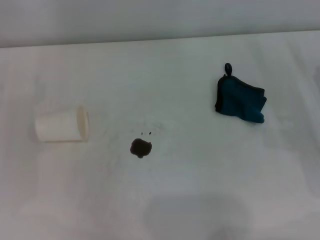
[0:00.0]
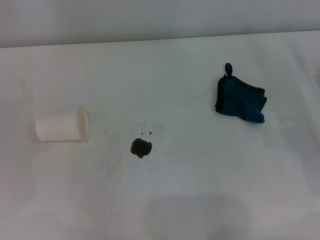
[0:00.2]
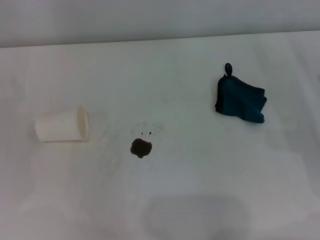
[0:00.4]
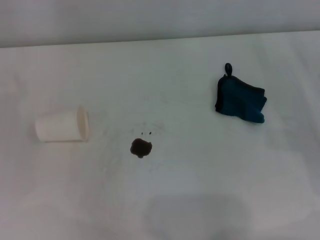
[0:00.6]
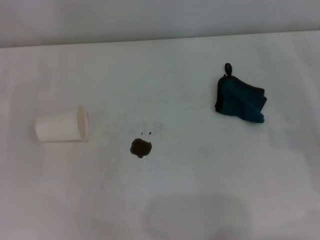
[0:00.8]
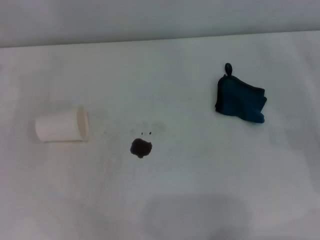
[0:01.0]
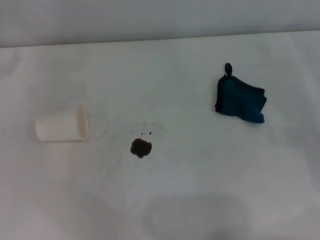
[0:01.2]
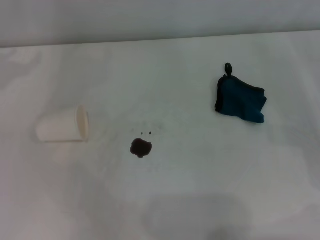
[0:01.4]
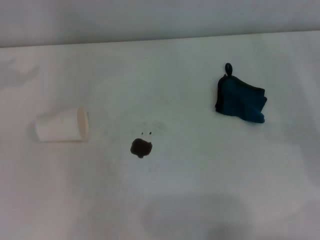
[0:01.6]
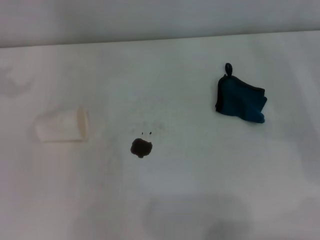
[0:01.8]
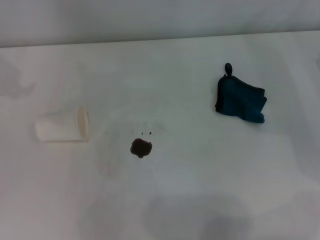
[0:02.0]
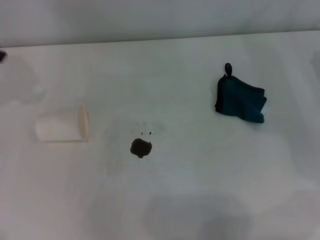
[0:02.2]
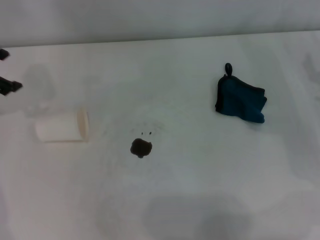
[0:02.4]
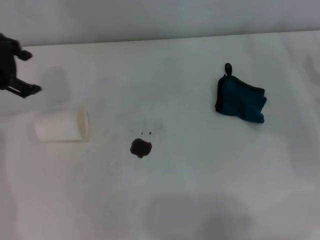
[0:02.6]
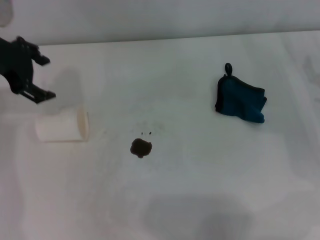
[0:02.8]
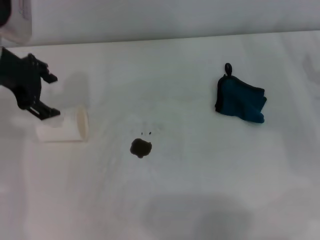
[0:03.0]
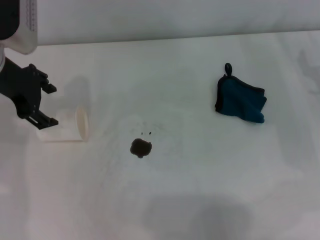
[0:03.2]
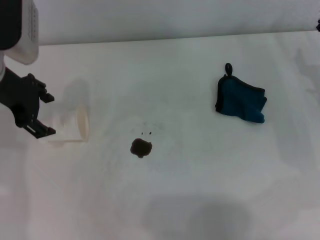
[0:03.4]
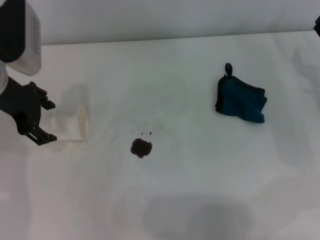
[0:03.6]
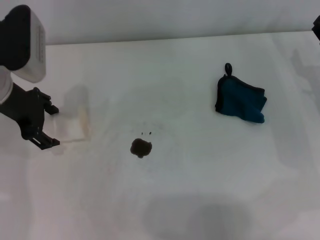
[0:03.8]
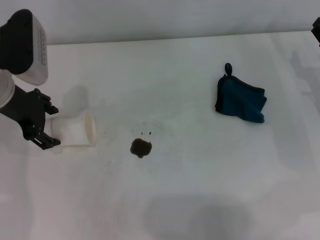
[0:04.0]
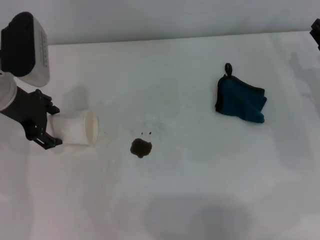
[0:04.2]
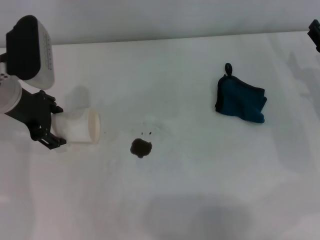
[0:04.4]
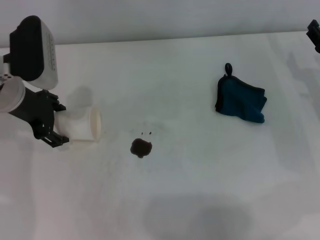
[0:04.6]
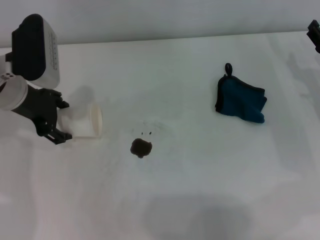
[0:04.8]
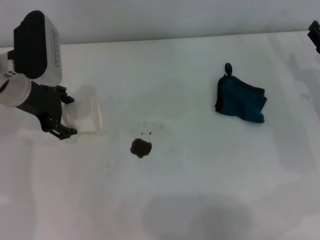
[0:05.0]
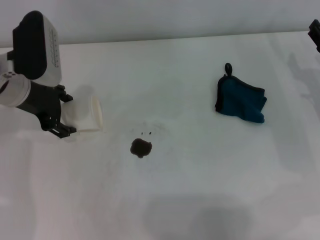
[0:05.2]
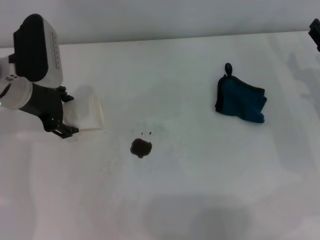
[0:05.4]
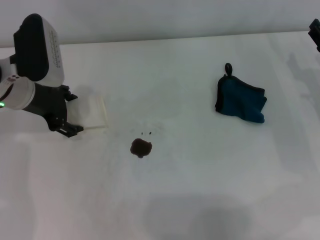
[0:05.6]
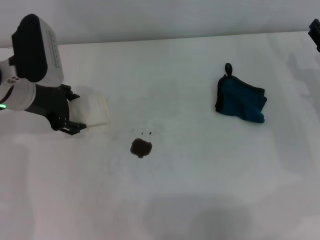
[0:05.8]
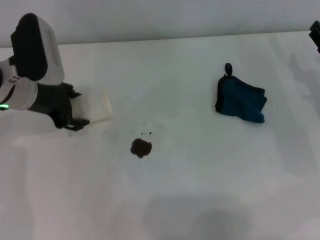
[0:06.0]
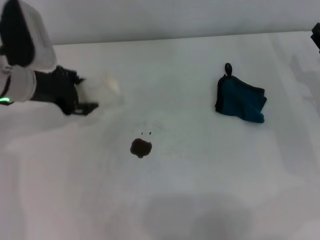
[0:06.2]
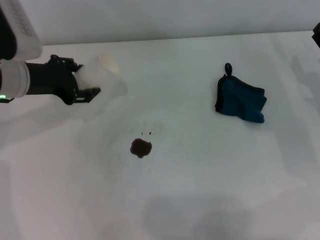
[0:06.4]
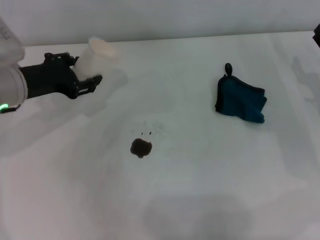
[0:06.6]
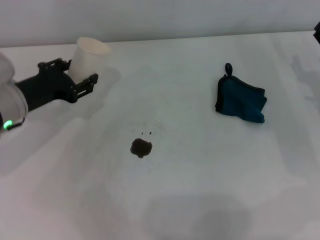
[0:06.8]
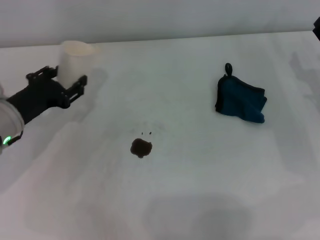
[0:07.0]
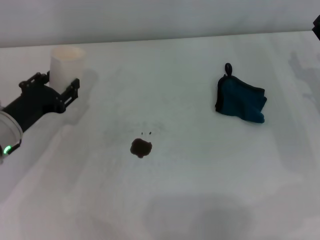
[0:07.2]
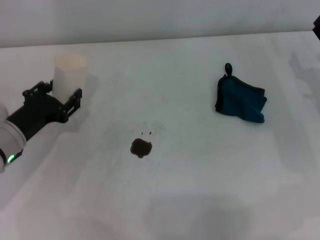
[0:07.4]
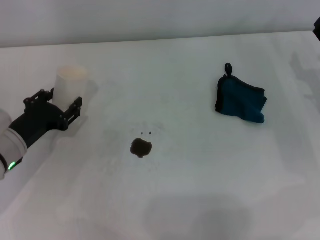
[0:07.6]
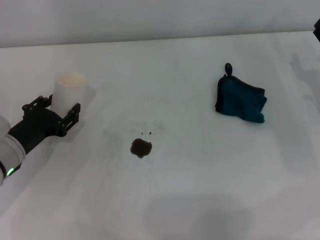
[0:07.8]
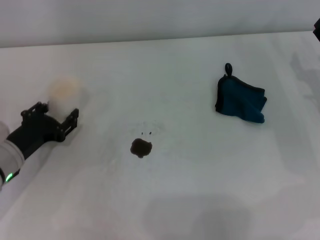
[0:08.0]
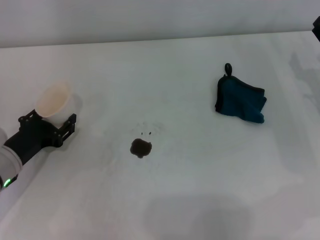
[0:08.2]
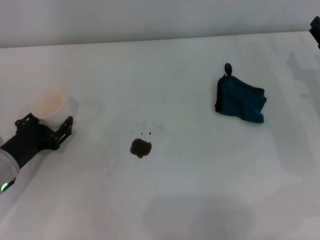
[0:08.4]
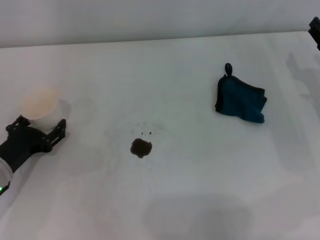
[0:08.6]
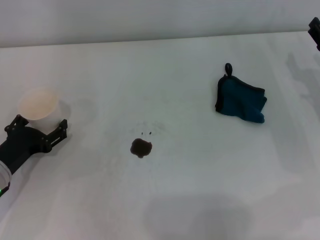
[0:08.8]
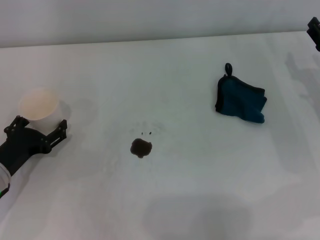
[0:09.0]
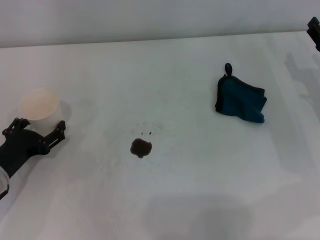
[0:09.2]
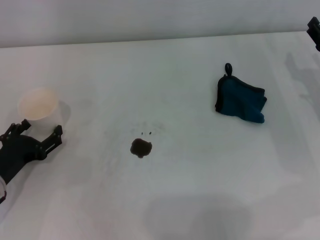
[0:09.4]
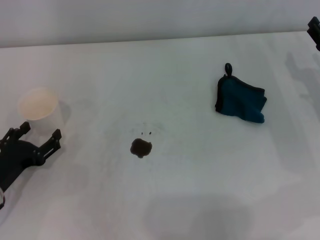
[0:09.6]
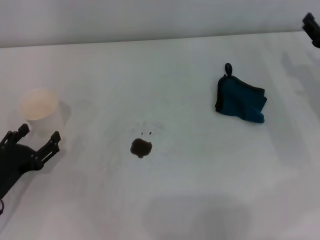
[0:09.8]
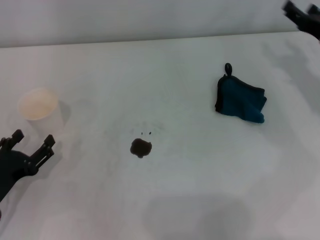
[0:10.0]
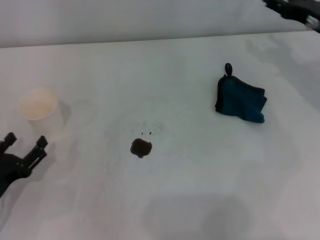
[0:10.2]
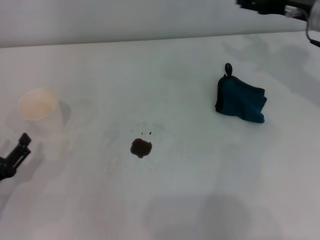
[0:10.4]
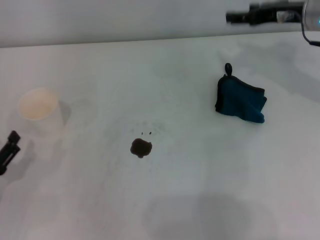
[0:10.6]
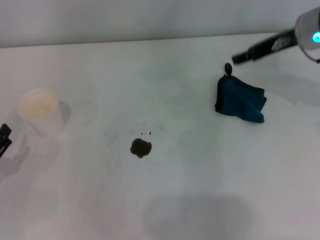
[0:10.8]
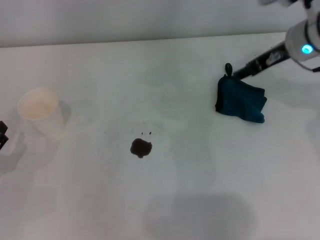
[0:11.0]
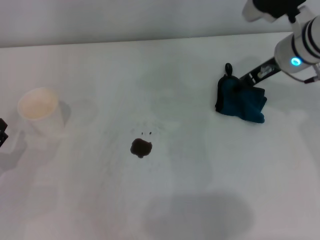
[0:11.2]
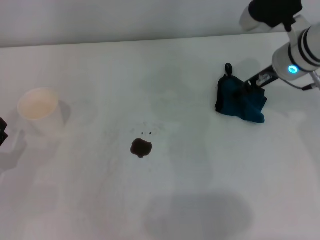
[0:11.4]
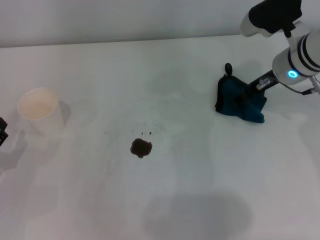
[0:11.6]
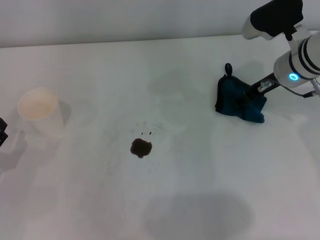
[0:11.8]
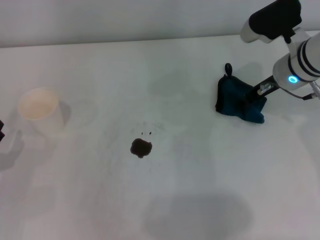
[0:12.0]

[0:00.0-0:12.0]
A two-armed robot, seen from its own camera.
Step, 0.0 to 5.8 s: Grasp the paper cup with the left gripper.
Step, 6.0 to 8.6 s: Stand the paper cup upright with the left gripper.
1.6 to 3.0 s: The left gripper heads to the right, covering about 15 cm.
3.0 to 4.4 s: The left gripper heads downward, covering approximately 5 cm.
4.4 to 6.0 s: The grippers move only a little.
6.0 to 7.6 s: The left gripper shifts roughly 15 cm downward and backward, and closes up.
7.6 to 9.0 s: The left gripper ends up about 5 cm from where it was, and opens its fingers.
9.0 to 10.4 s: The right gripper heads upward and forward, covering about 15 cm; the left gripper heads backward, covering about 5 cm.
10.4 to 12.0 s: The right gripper travels to the left by approximately 5 cm.

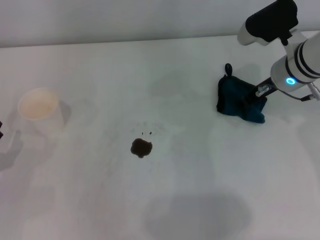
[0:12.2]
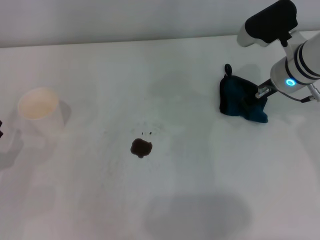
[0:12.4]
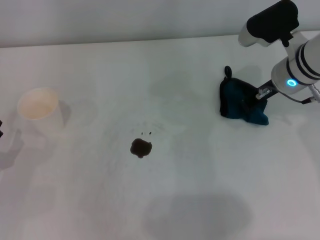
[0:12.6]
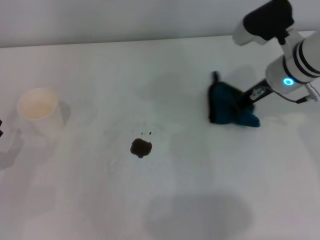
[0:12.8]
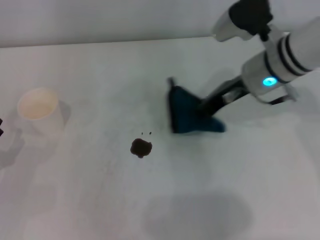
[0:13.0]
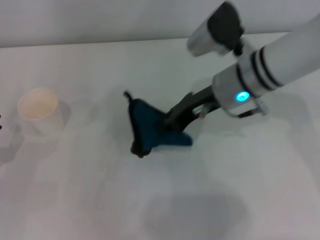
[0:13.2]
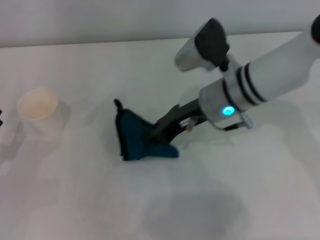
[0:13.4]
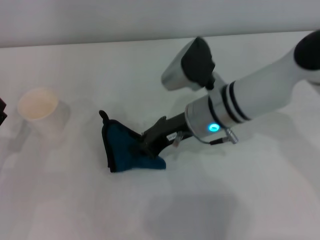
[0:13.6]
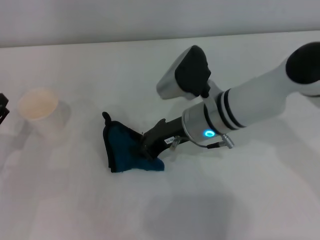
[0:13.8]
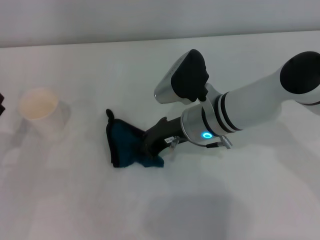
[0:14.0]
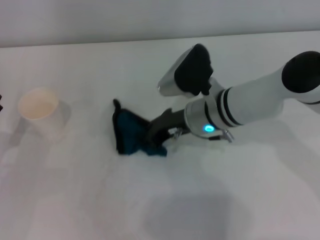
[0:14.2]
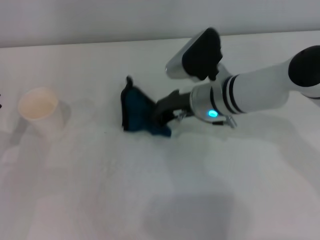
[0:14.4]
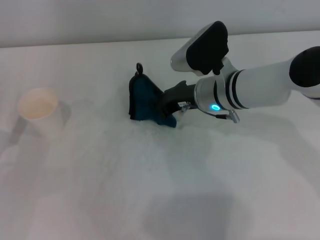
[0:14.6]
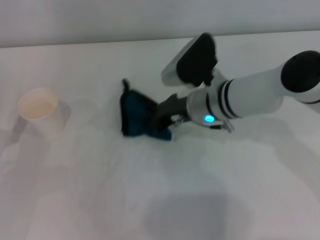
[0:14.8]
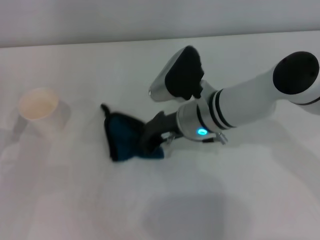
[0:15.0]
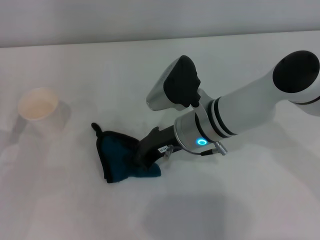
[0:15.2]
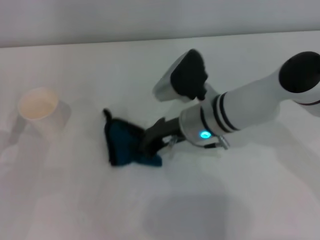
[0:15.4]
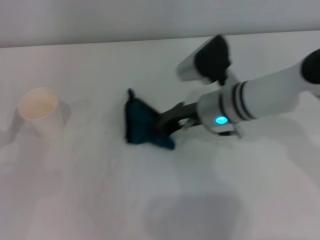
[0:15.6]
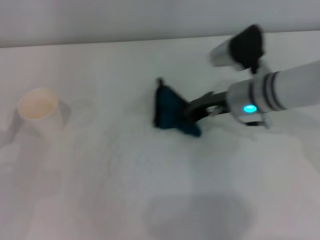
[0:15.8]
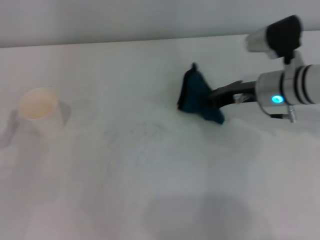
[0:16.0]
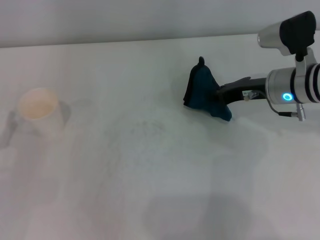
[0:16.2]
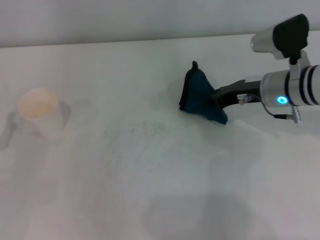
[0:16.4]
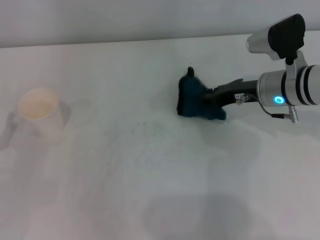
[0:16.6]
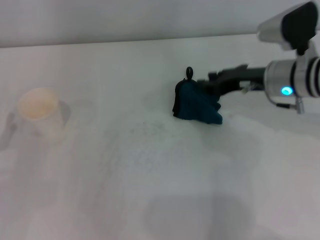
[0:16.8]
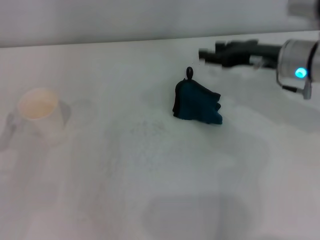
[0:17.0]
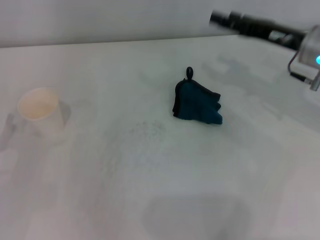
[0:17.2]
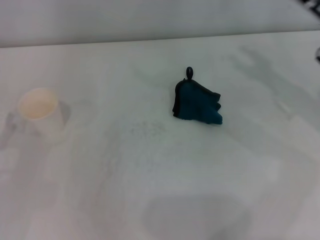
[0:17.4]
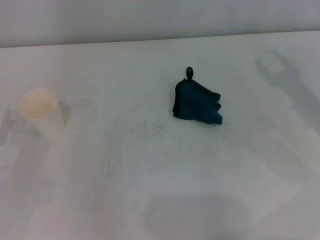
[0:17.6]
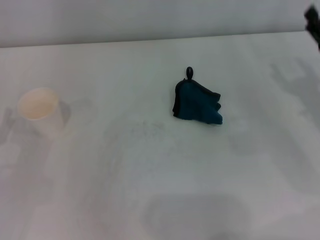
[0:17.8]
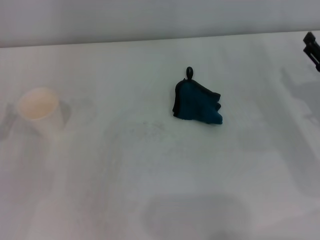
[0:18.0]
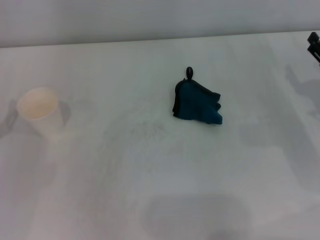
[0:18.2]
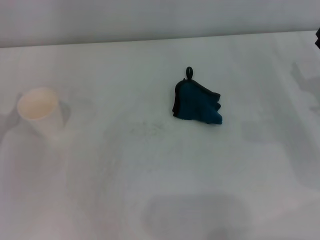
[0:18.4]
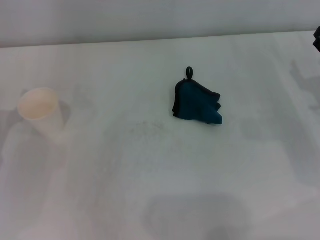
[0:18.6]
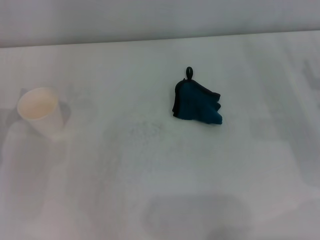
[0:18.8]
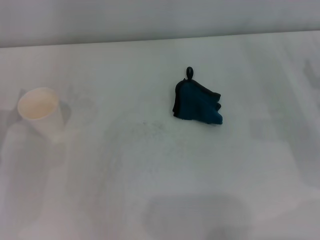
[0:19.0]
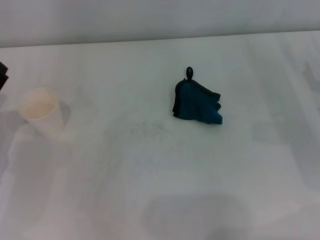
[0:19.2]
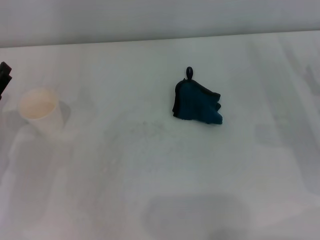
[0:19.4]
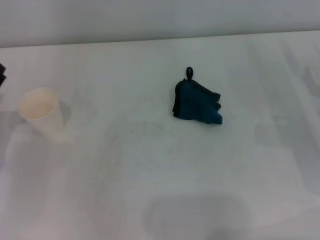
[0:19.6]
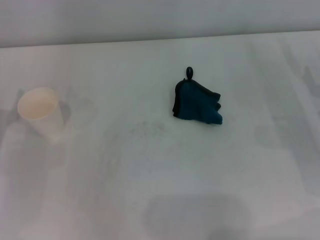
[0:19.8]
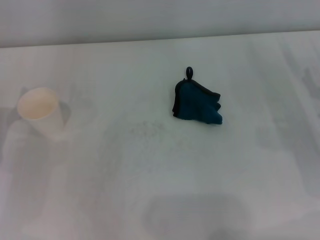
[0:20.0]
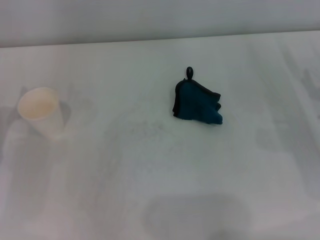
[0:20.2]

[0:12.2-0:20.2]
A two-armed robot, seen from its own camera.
Step, 12.6 to 15.6 s: Wipe the stains off the table with the right gripper.
Step, 16.0 to 16.4 s: Place the rag on the table with the right gripper.
12.2 to 13.8 s: The right gripper heads to the left, covering roughly 15 cm, and closes up.
13.8 to 15.4 s: There are only small adjustments of the grippers.
15.4 to 17.0 s: The right gripper goes approximately 15 cm to the right and upward, and opens its fingers.
17.0 to 18.6 s: The right gripper travels to the right, downward and backward by roughly 15 cm, and opens up.

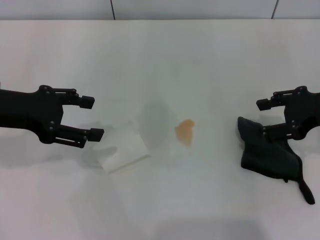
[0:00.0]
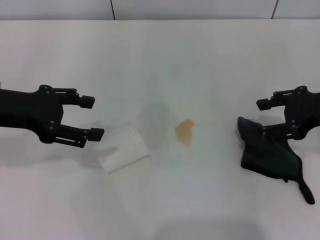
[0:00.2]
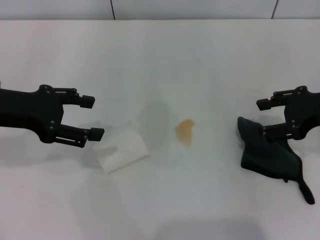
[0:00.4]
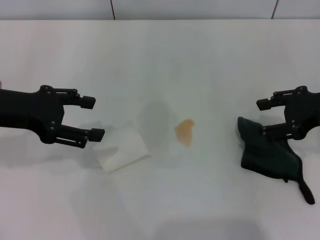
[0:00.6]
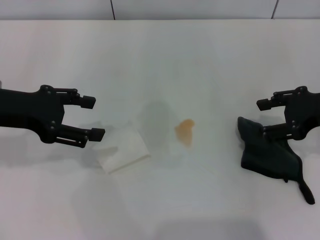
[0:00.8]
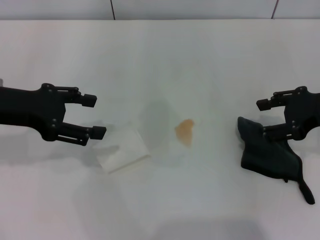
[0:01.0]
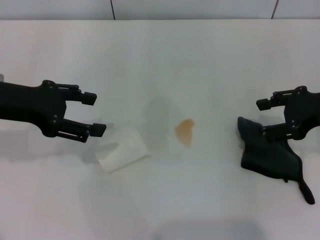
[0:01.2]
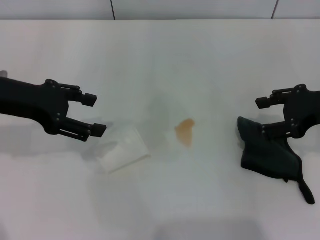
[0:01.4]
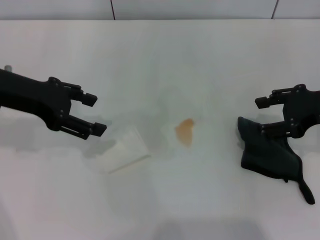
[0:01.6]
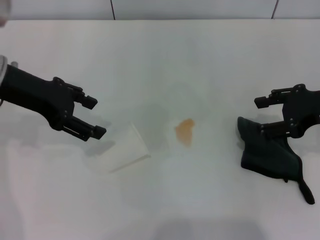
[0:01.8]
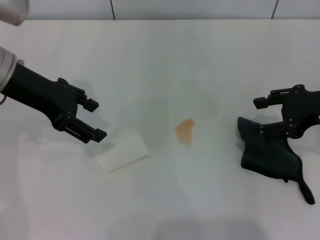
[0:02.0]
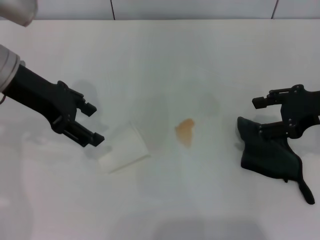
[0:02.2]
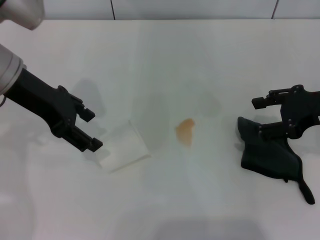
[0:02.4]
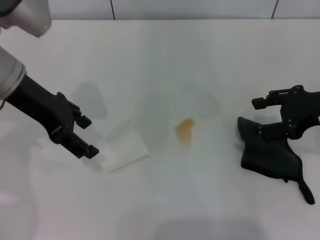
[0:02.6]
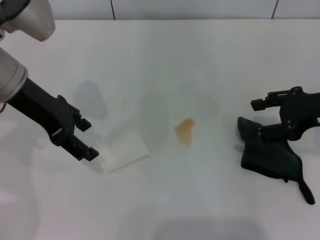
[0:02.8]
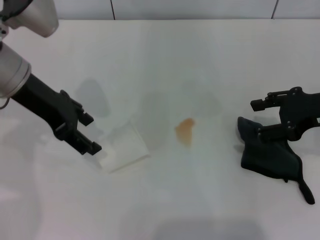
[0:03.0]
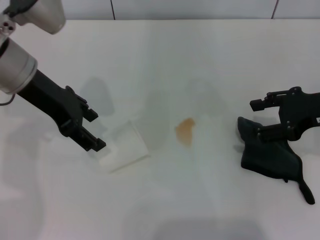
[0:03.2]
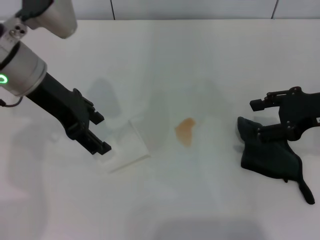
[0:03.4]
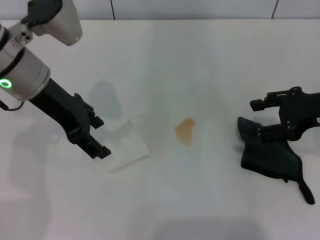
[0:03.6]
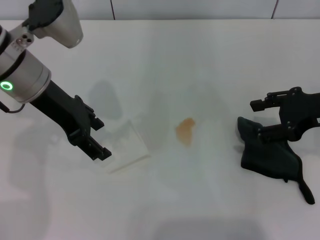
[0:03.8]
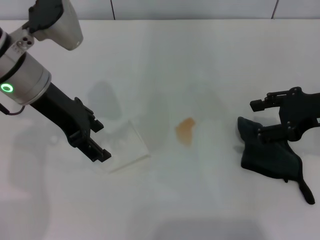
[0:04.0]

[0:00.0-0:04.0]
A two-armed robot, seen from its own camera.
0.0 to 1.4 s: There are only small adjustments of the grippers.
1.4 to 2.6 s: The left gripper changes place by some 5 cm.
2.6 to 4.0 s: The grippers make only small movements.
